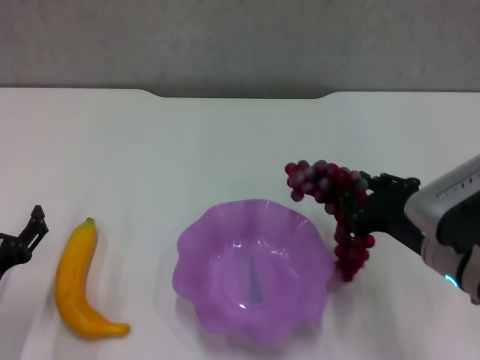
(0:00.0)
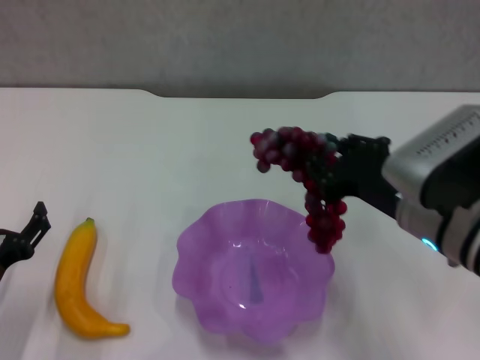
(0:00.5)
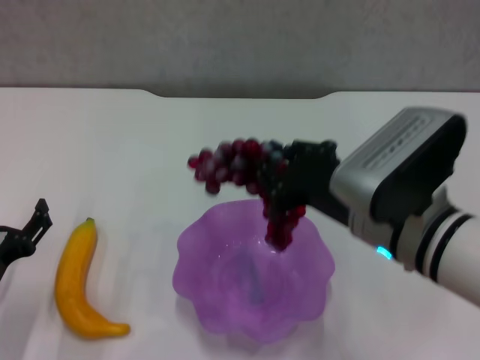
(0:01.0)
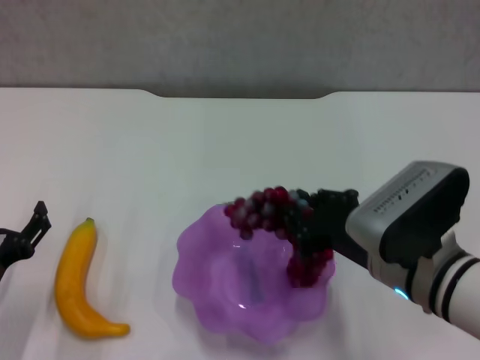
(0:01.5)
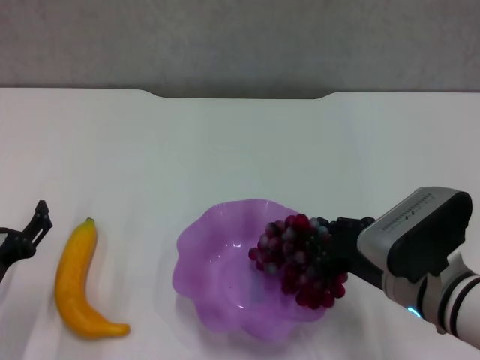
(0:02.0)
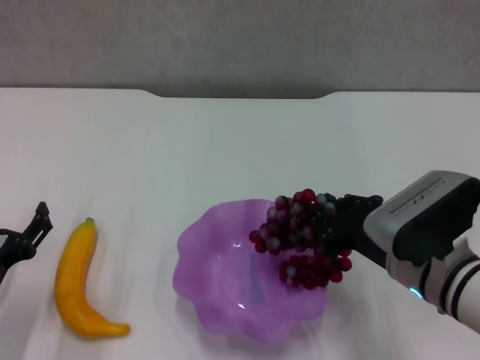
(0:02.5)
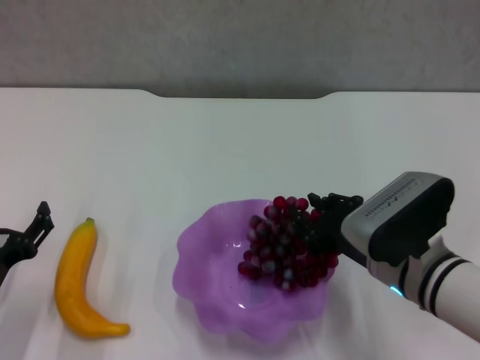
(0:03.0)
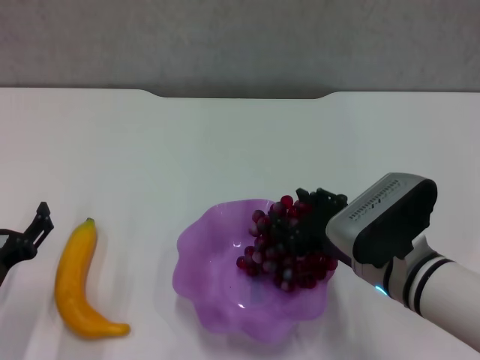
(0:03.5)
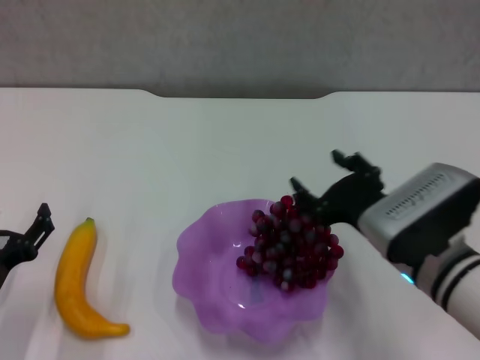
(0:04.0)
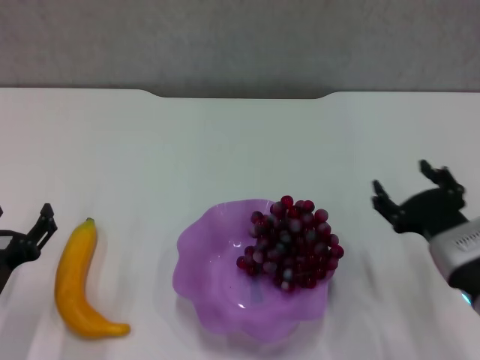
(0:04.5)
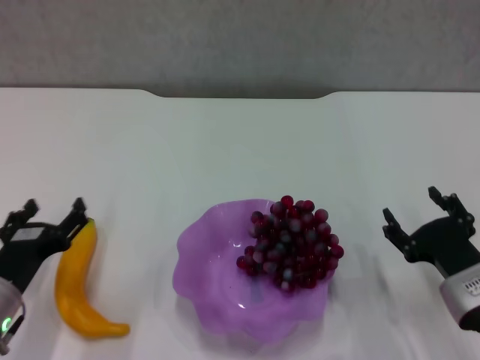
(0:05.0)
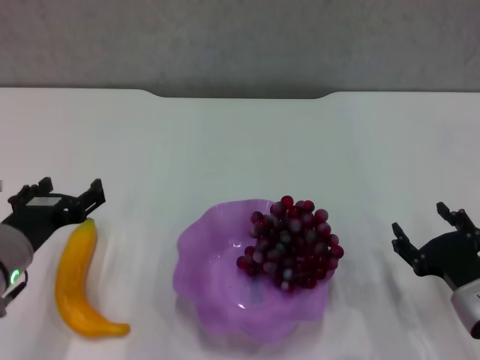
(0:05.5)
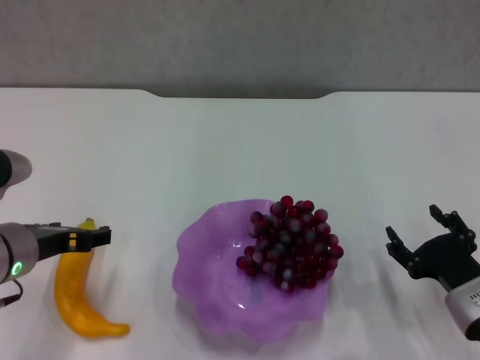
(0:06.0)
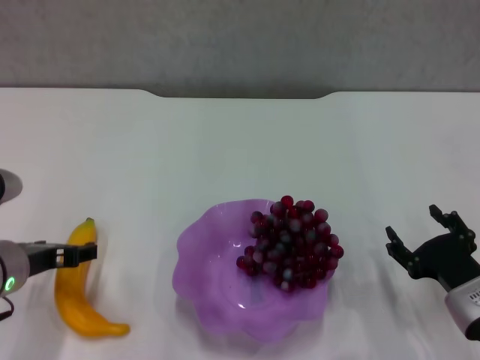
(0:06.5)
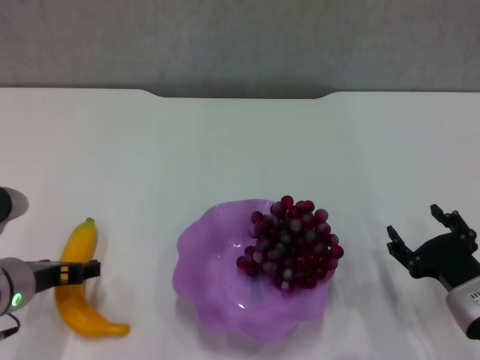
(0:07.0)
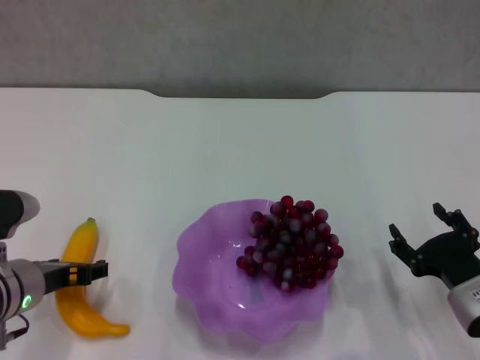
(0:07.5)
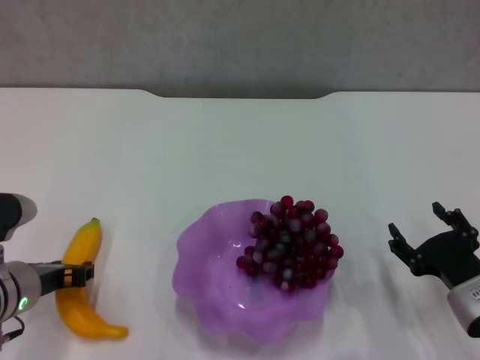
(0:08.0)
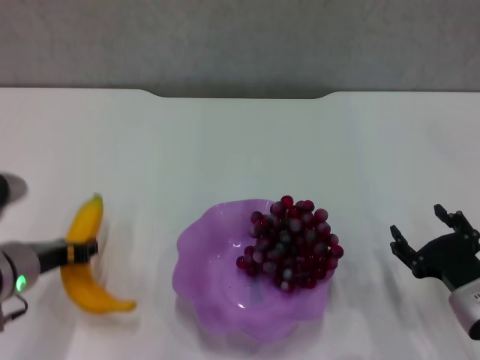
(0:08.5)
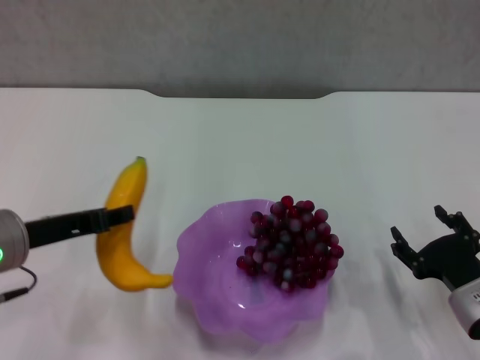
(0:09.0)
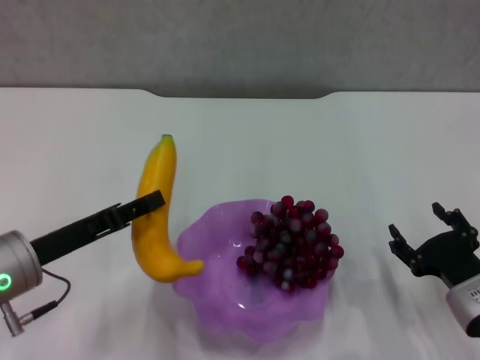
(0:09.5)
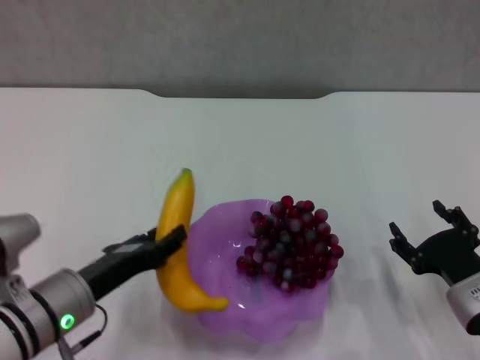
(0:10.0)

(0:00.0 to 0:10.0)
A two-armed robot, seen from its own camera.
Step, 0:00.0 - 0:03.5: Place the grape in the purple plate with right gripper.
Step, 0:04.0 - 0:08.0: Grasp the banana with left gripper.
0:02.0 - 0:04.0: The right gripper opens up.
0:04.0 - 0:06.0: The right gripper goes roughly 15 cm to the right and downward; the left gripper travels upward, forward and to the right by about 10 cm.
0:06.0 - 0:08.0: The left gripper closes.
0:08.0 - 0:10.0: The left gripper reaches approximately 10 cm upward, then returns, and closes up.

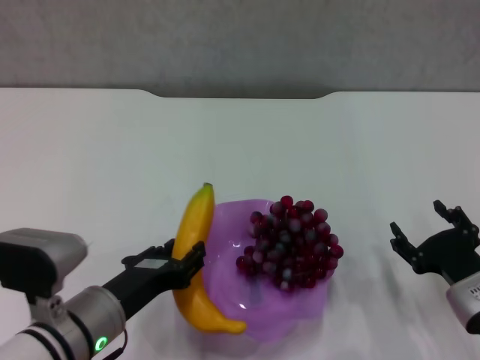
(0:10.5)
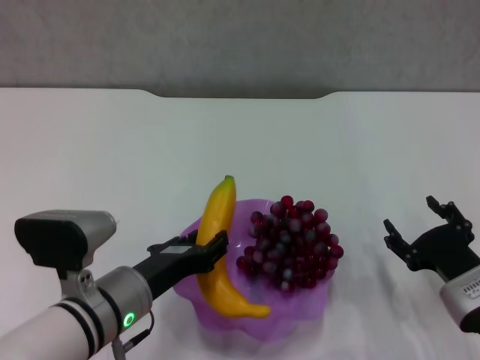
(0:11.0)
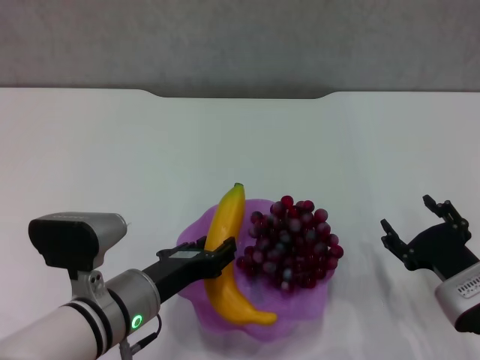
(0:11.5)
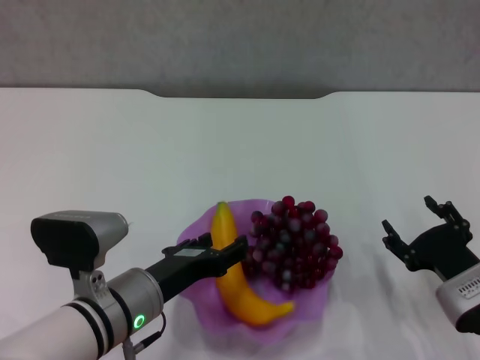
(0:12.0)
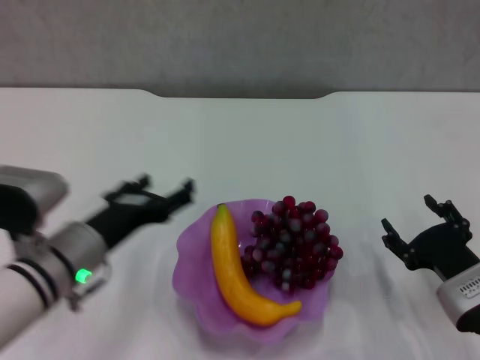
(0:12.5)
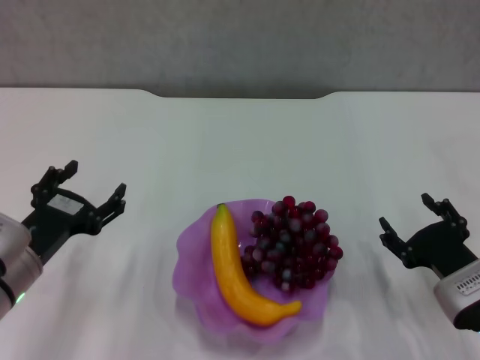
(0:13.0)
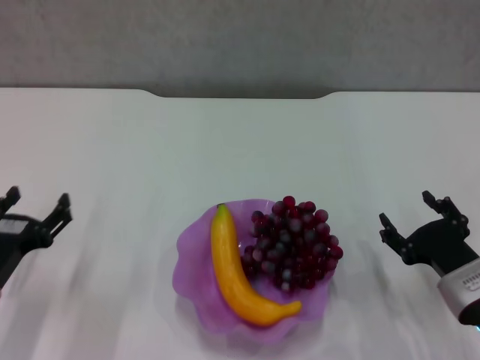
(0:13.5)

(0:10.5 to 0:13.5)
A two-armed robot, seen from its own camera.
0:10.5 - 0:12.0: There are only small adjustments of the grippers.
0:12.0 - 0:13.5: The left gripper is displaced to the left by about 15 cm, and opens.
